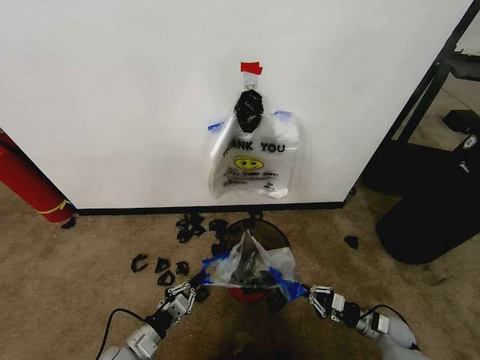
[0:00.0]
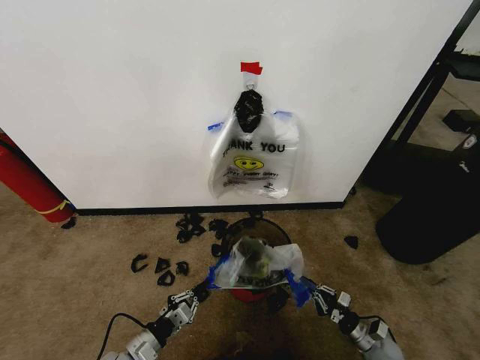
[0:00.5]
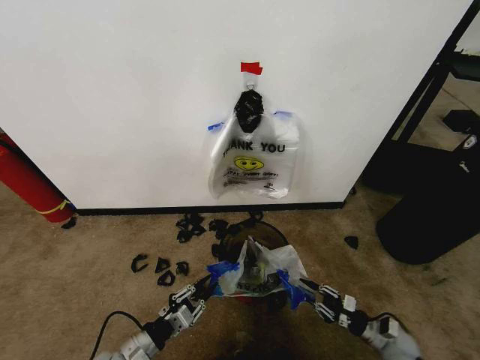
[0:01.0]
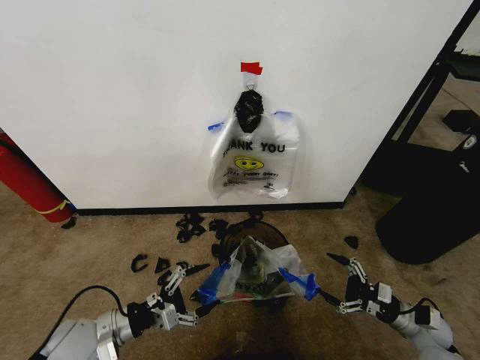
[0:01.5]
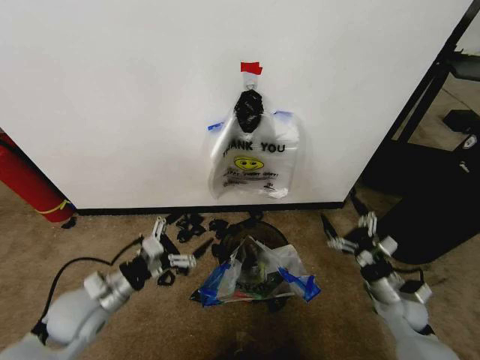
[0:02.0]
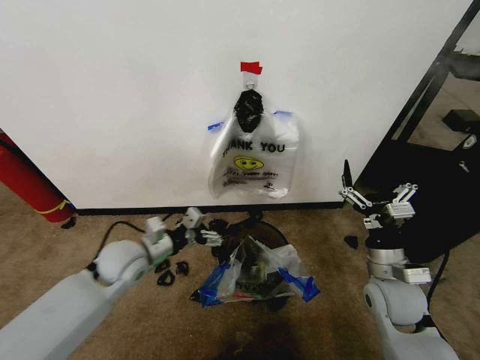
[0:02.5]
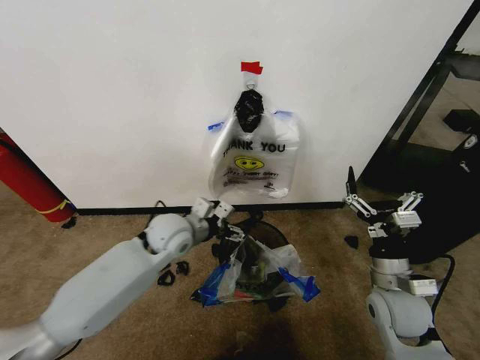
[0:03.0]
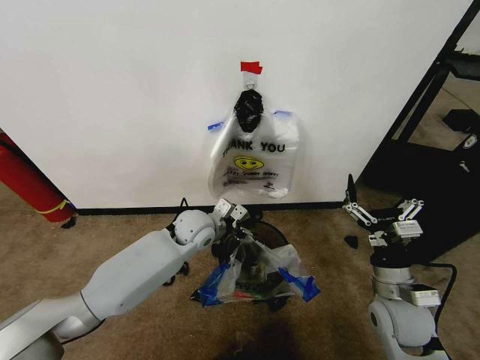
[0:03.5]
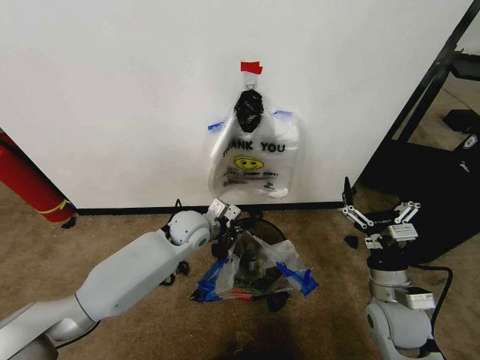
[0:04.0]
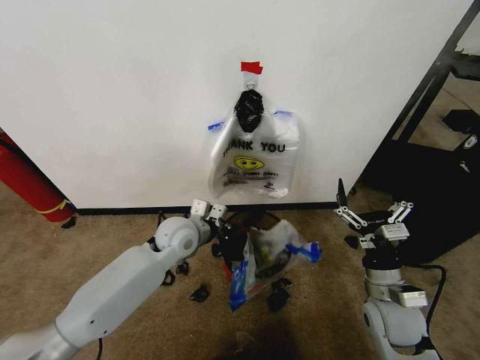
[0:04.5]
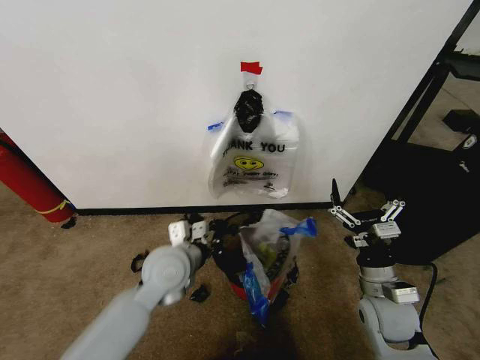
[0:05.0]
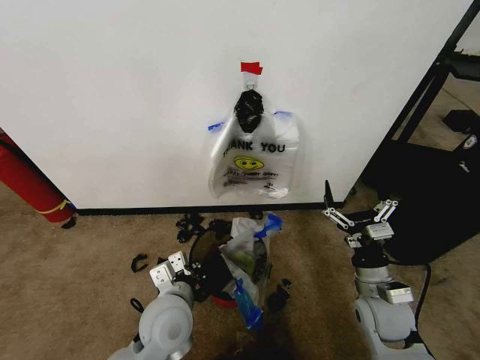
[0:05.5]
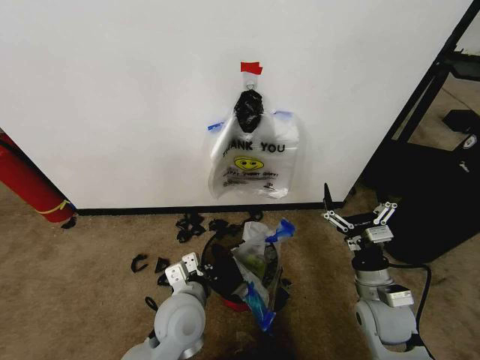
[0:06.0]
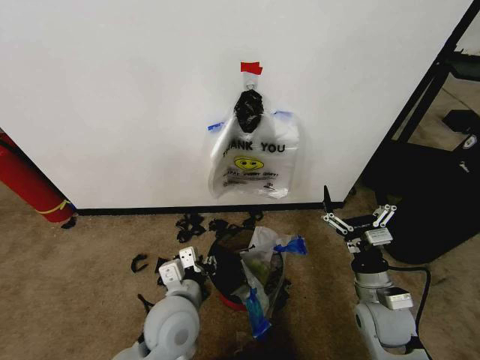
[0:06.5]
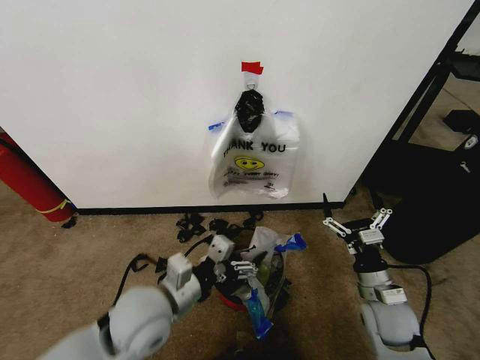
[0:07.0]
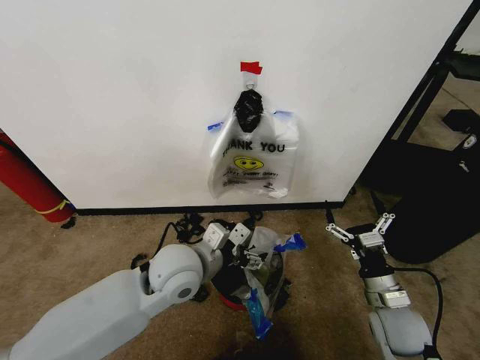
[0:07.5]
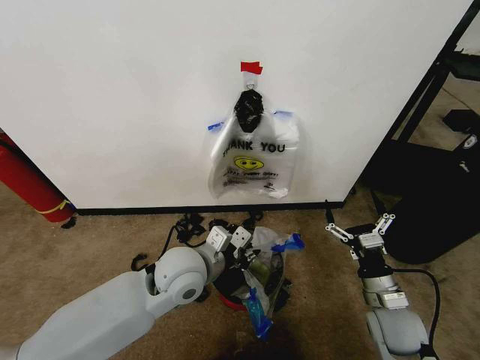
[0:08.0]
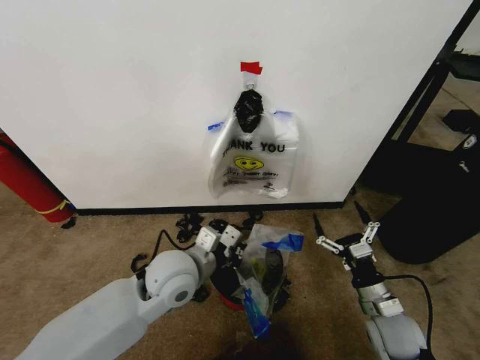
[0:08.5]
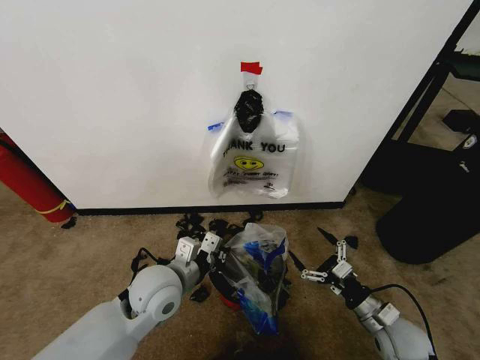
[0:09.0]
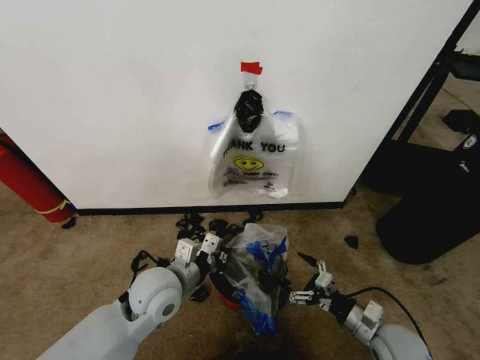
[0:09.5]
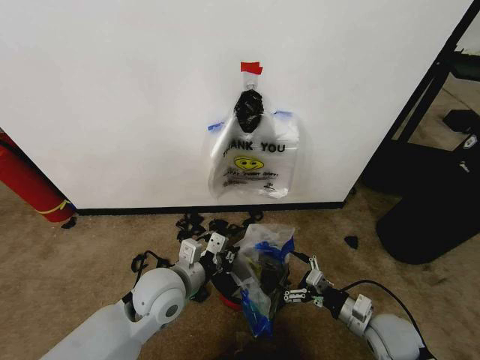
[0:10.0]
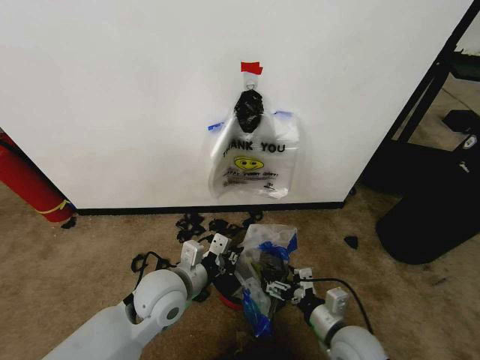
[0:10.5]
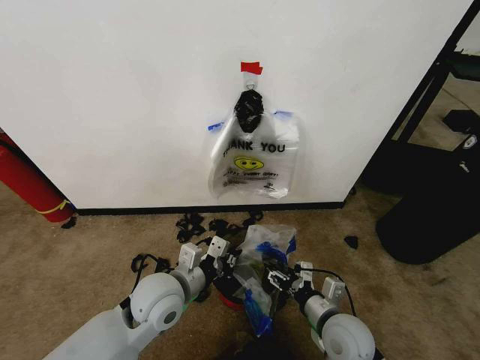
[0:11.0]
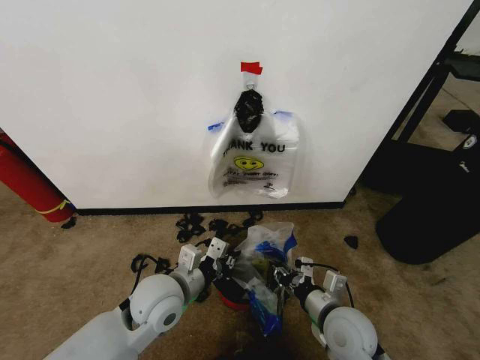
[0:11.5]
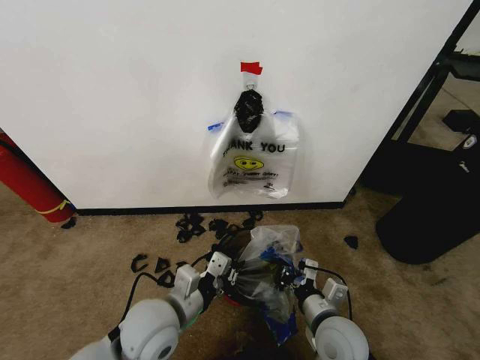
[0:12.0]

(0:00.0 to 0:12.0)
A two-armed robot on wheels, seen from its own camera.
Task of the whole recording: Pick up the garbage bag from the wall and place it over the trash bin.
0:00.0 - 0:02.0: The right gripper goes approximately 15 cm upward, and opens its fingers; the left gripper shifts approximately 20 cm upward and forward, and opens.
0:02.0 - 0:04.0: The left gripper heads to the right and forward, covering about 25 cm, and closes its fingers, while the right gripper goes about 10 cm upward and to the left.
0:04.0 - 0:06.0: The left gripper moves backward, approximately 20 cm.
0:06.0 - 0:08.0: The left gripper moves upward and forward, approximately 10 cm, and opens, then closes again.
0:08.0 - 0:10.0: The left gripper changes place by some 5 cm.
0:10.0 - 0:12.0: The right gripper shifts approximately 15 cm to the left, and closes up. The left gripper shifts approximately 5 cm backward.

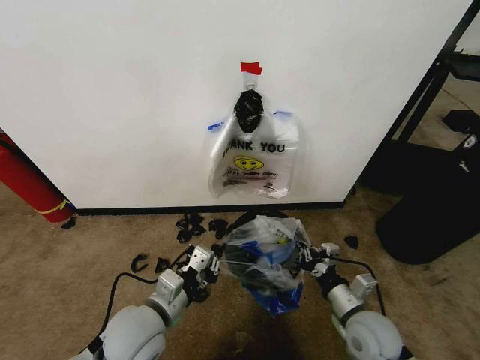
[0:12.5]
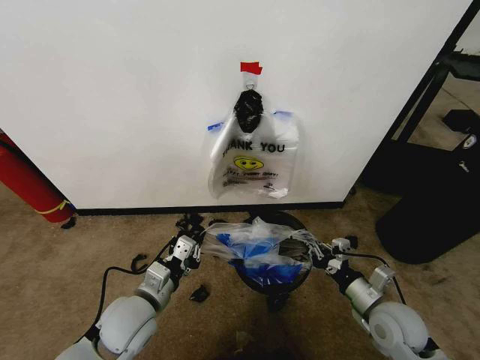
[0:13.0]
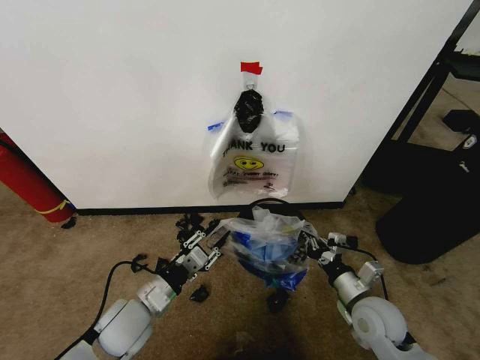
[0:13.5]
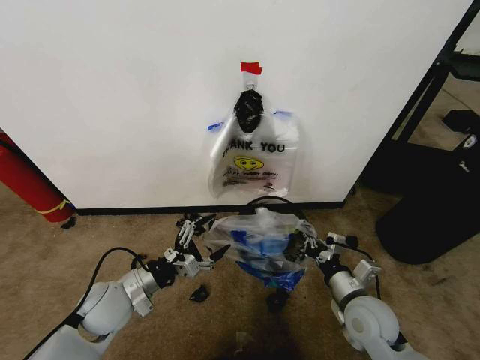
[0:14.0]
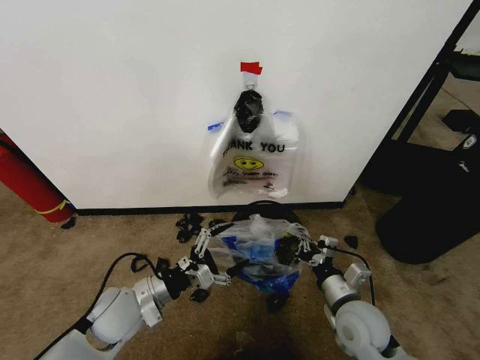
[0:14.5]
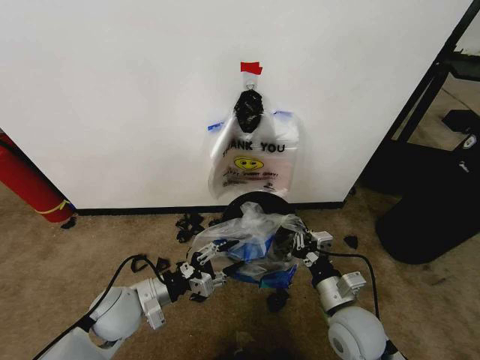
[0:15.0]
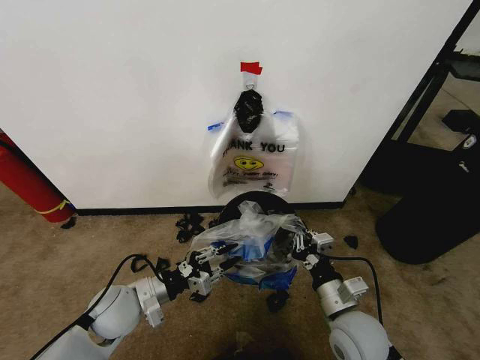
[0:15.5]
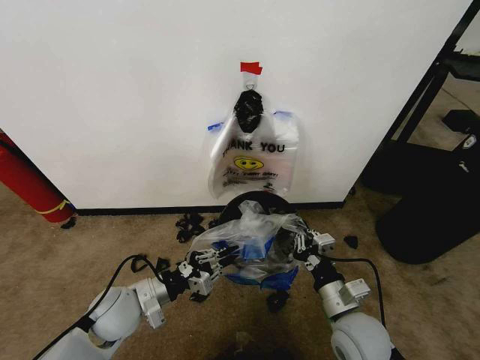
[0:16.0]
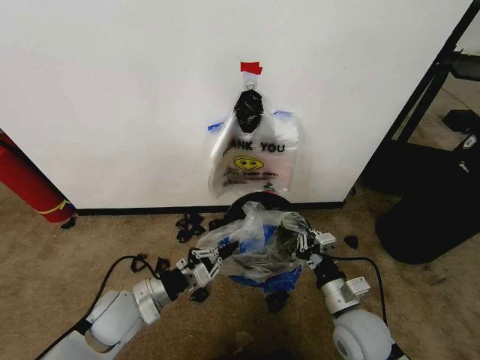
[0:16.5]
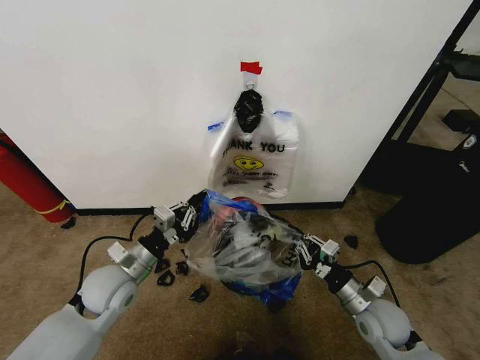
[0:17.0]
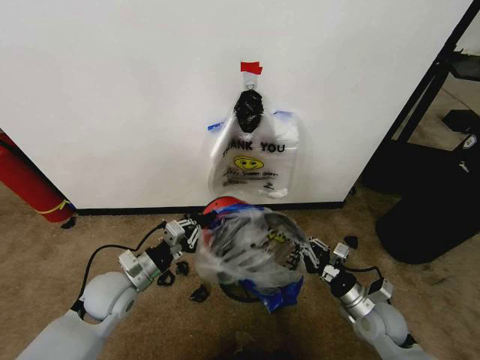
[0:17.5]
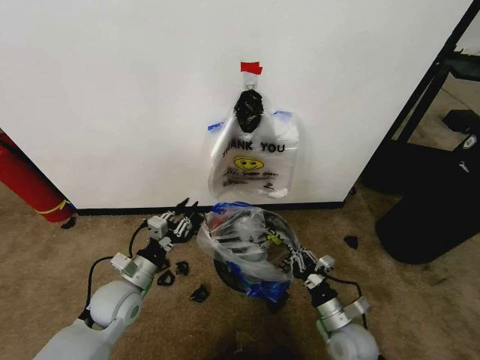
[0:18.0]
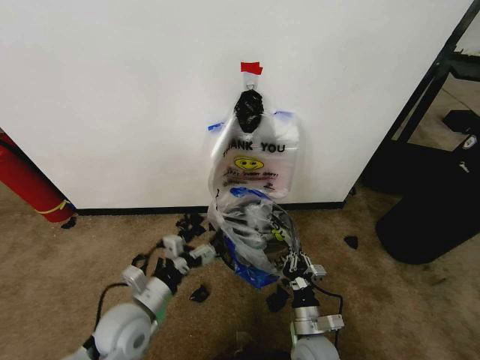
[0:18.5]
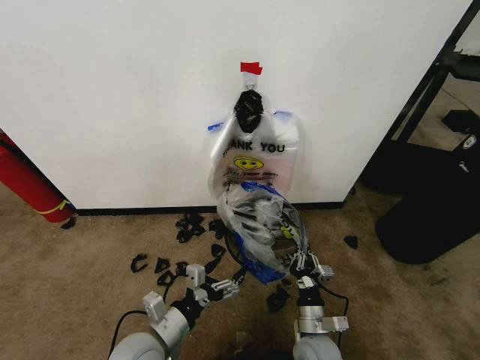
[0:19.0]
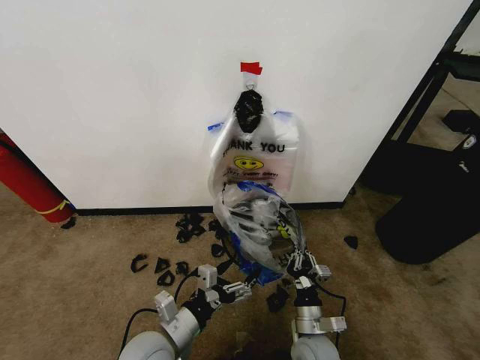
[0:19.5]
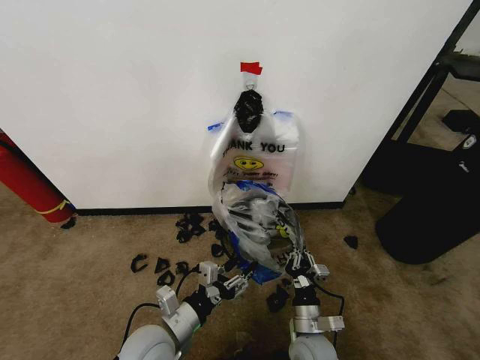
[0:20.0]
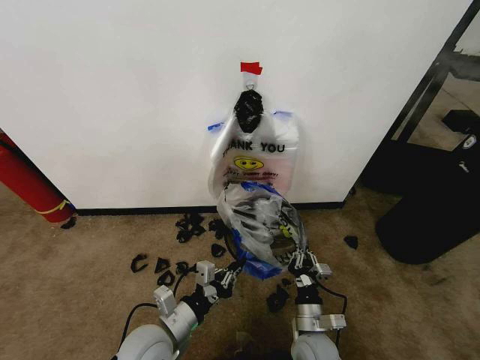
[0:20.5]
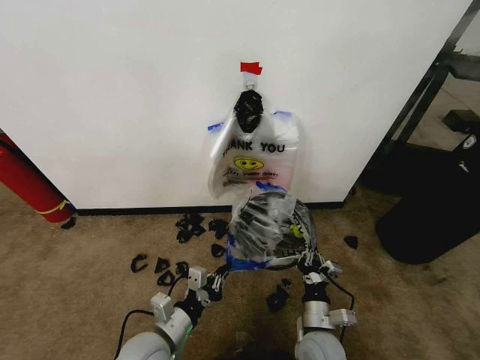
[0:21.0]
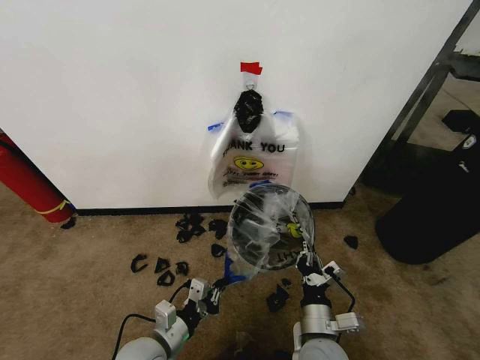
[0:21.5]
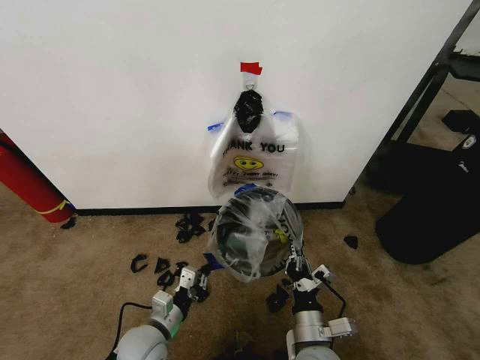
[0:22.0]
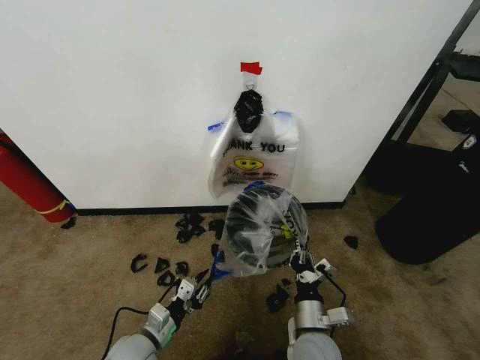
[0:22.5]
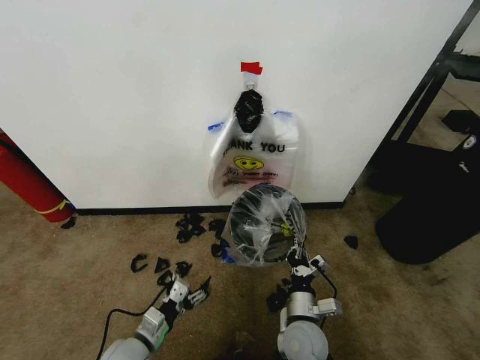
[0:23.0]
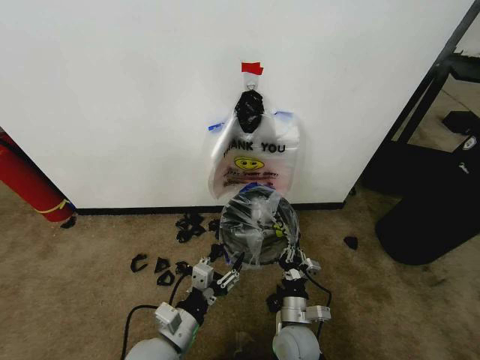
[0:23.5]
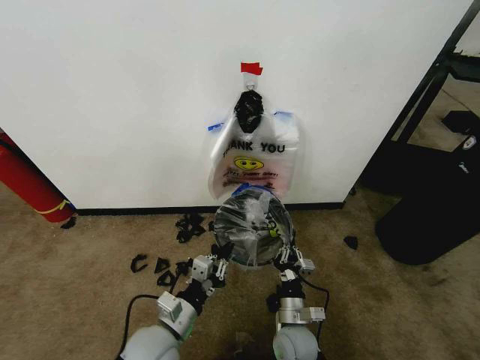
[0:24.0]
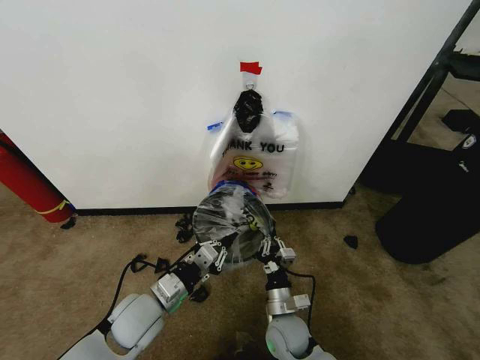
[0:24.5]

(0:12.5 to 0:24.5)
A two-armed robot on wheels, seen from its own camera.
Task of the whole recording: Pick up the garbage bag from the wall and place it over the trash bin.
0:12.5 - 0:14.5: The right gripper goes to the right and returns, some 5 cm each way. Meanwhile the left gripper goes roughly 5 cm to the left, and opens.
0:14.5 - 0:16.5: The left gripper closes up.
0:16.5 - 0:18.5: The left gripper opens up, while the right gripper moves downward and to the left, approximately 15 cm.
0:18.5 - 0:20.5: The left gripper shifts by some 5 cm, and closes its fingers.
0:20.5 - 0:22.5: The right gripper moves upward, roughly 5 cm; the left gripper heads downward and to the left, covering approximately 10 cm.
0:22.5 - 0:24.5: The right gripper changes place by about 10 cm. The left gripper heads upward, covering some 10 cm, and opens, then closes once more.

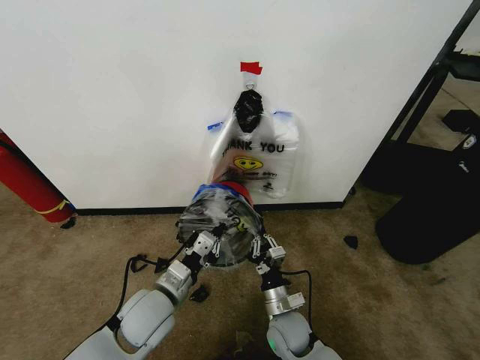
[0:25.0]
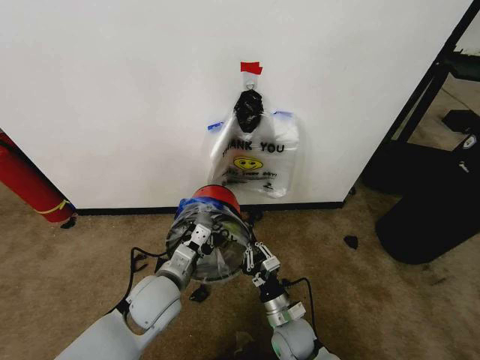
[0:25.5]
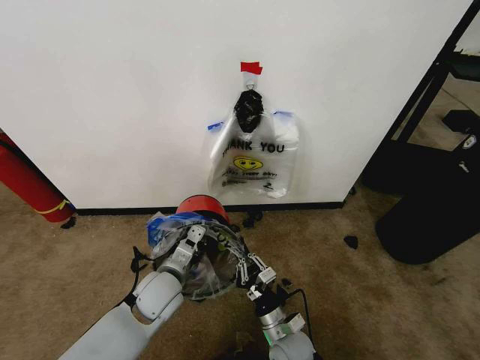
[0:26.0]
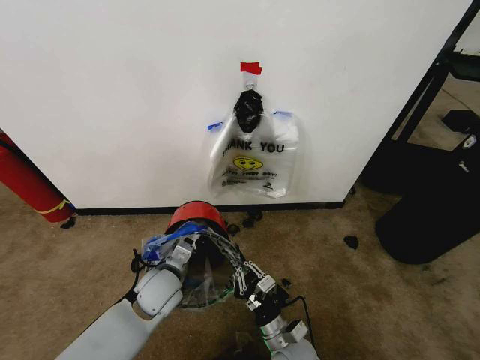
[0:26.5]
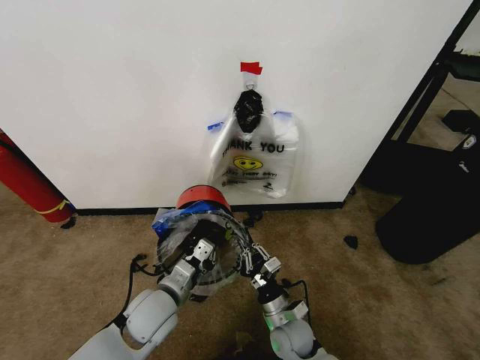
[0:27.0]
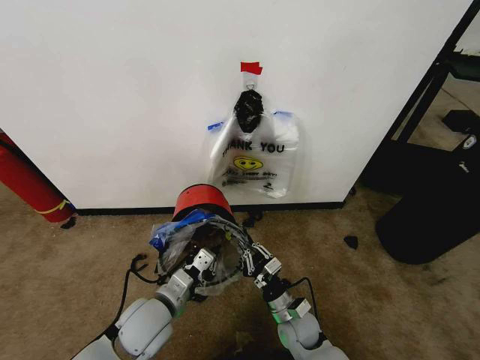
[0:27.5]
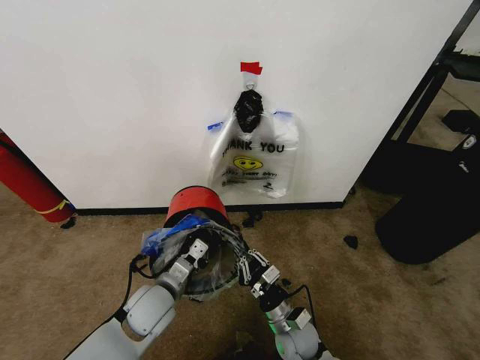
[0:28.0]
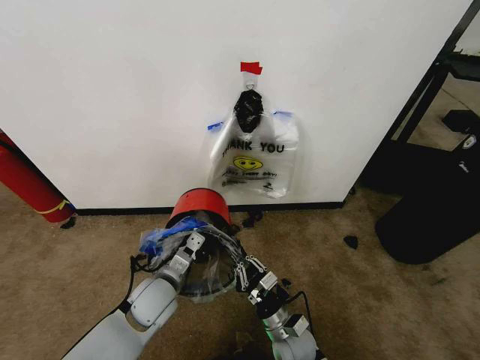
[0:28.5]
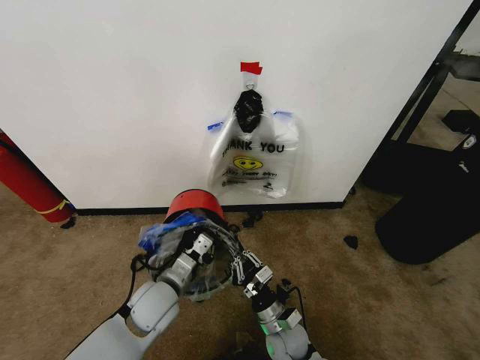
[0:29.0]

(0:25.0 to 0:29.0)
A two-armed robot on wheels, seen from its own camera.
Task of the whole recording: Pick up the garbage bag from the wall and place it over the trash bin.
0:27.0 - 0:29.0: There are only small adjustments of the grippers.
